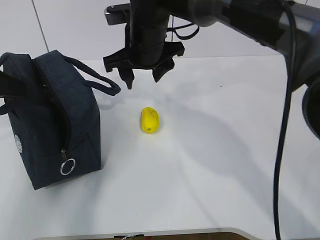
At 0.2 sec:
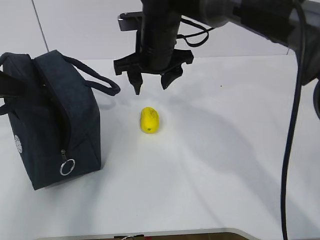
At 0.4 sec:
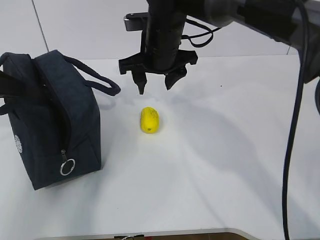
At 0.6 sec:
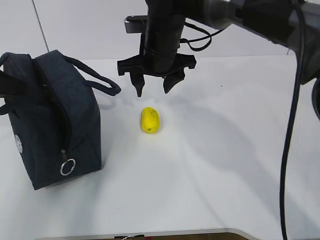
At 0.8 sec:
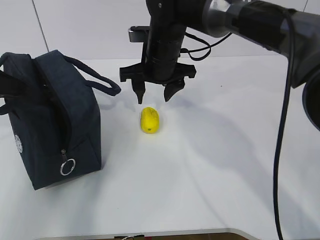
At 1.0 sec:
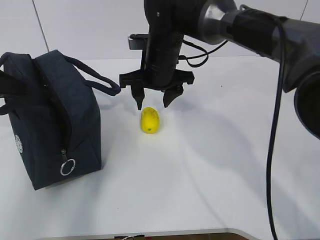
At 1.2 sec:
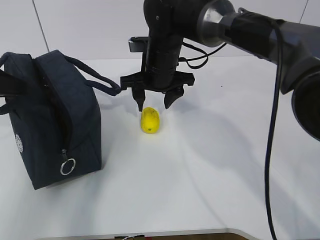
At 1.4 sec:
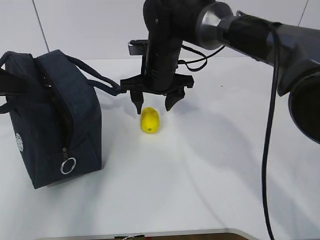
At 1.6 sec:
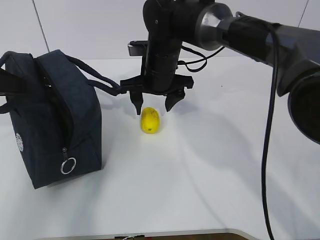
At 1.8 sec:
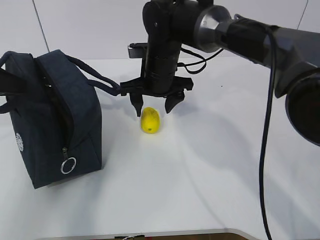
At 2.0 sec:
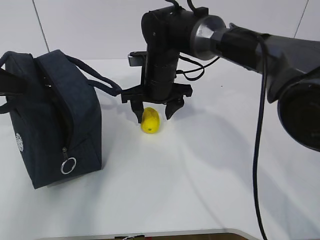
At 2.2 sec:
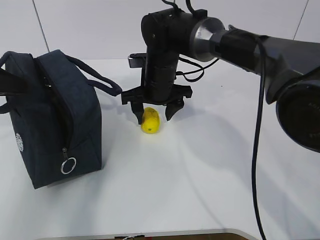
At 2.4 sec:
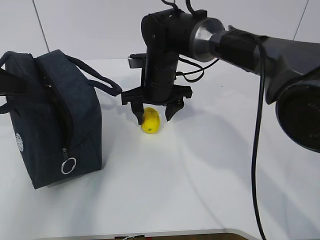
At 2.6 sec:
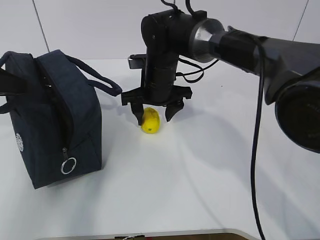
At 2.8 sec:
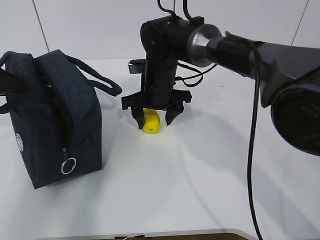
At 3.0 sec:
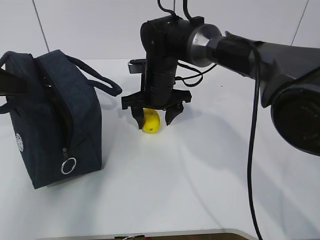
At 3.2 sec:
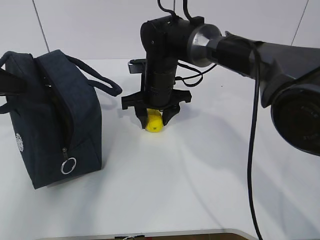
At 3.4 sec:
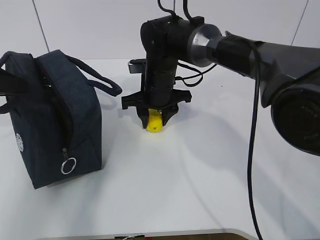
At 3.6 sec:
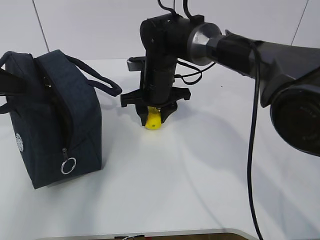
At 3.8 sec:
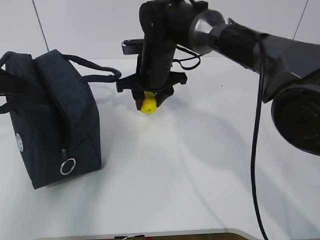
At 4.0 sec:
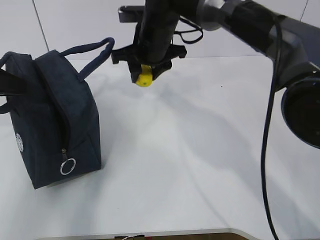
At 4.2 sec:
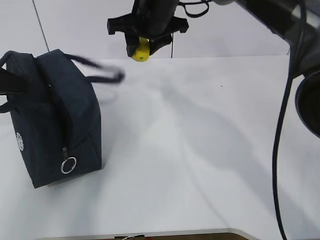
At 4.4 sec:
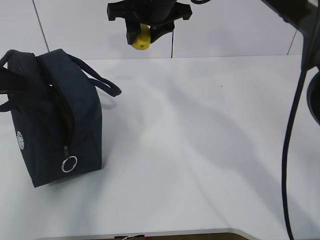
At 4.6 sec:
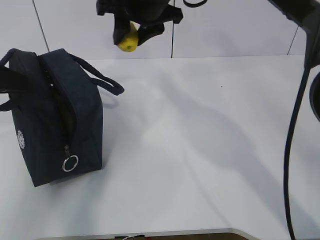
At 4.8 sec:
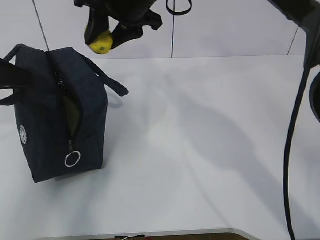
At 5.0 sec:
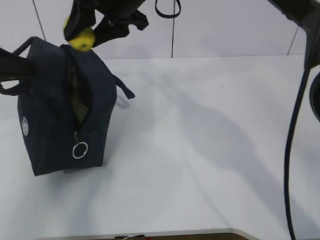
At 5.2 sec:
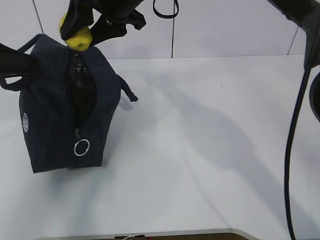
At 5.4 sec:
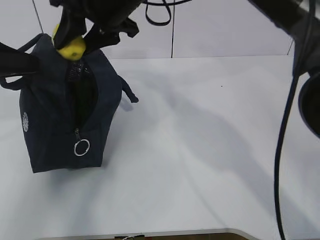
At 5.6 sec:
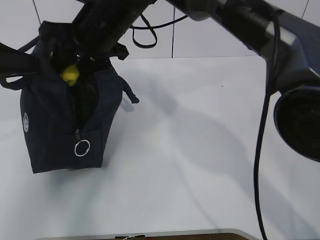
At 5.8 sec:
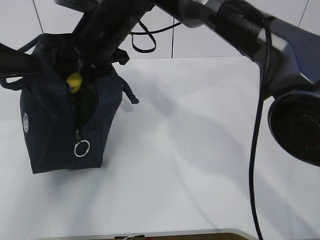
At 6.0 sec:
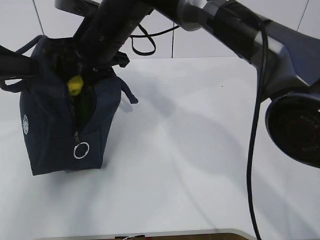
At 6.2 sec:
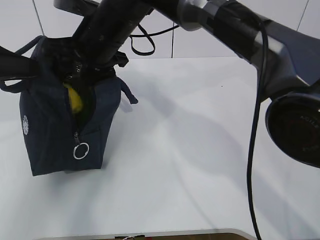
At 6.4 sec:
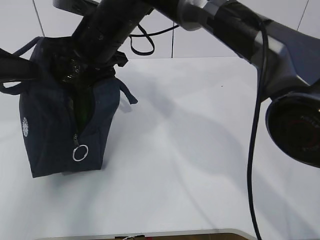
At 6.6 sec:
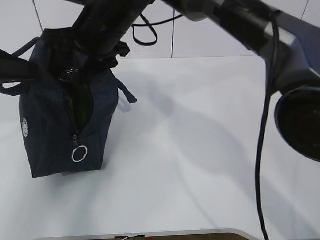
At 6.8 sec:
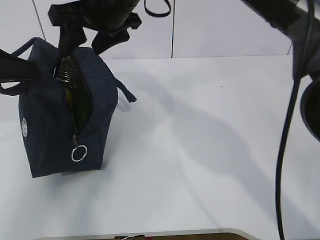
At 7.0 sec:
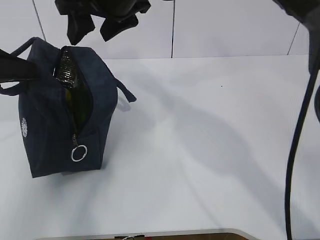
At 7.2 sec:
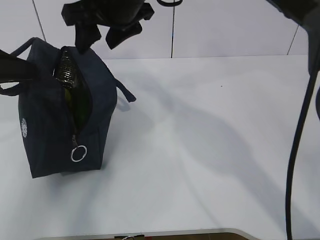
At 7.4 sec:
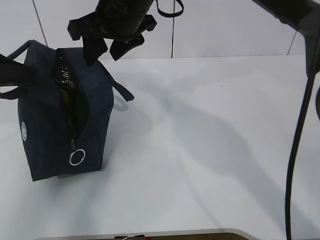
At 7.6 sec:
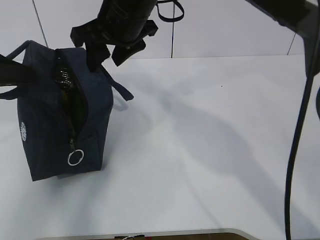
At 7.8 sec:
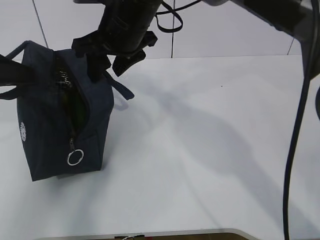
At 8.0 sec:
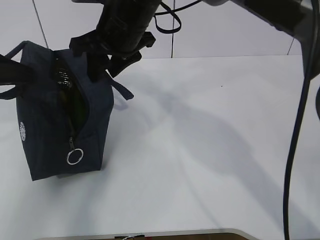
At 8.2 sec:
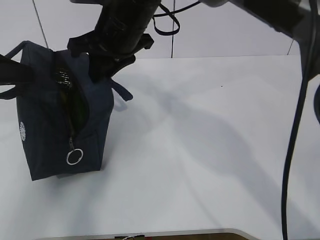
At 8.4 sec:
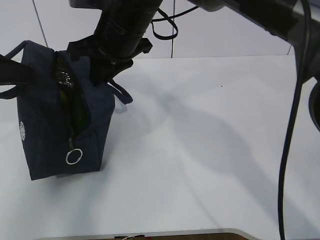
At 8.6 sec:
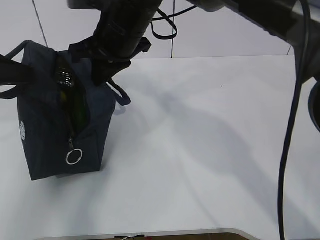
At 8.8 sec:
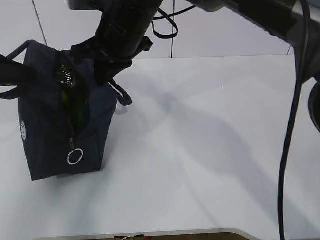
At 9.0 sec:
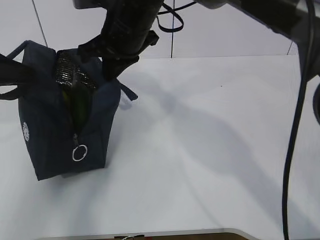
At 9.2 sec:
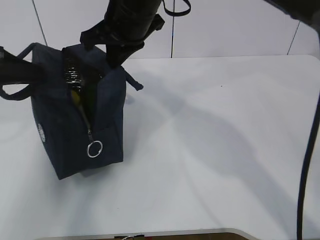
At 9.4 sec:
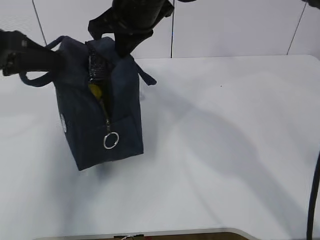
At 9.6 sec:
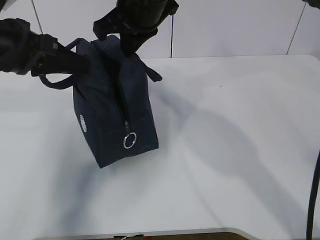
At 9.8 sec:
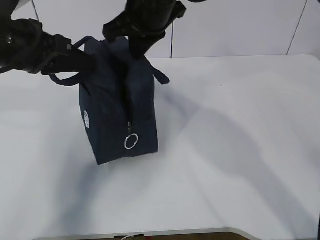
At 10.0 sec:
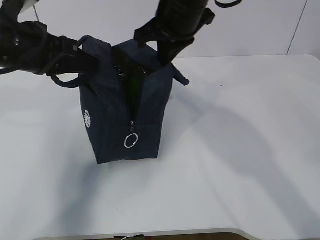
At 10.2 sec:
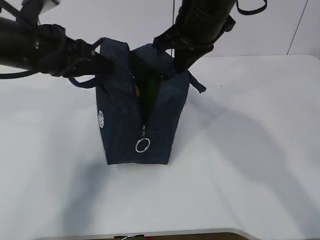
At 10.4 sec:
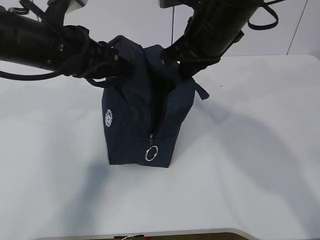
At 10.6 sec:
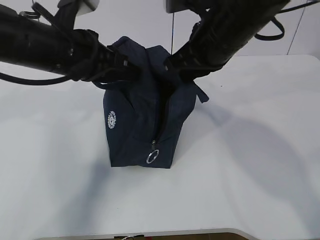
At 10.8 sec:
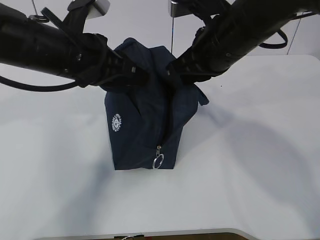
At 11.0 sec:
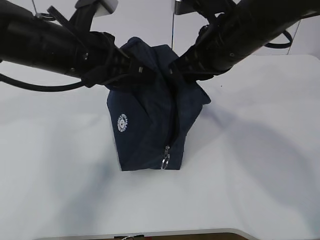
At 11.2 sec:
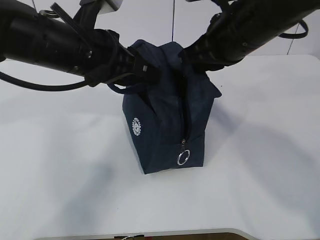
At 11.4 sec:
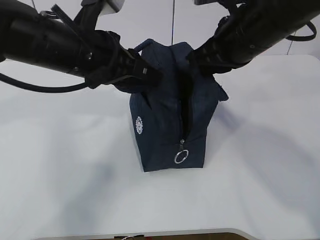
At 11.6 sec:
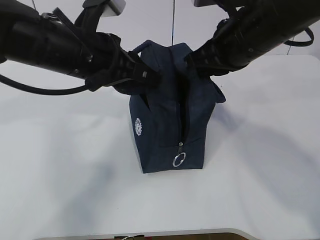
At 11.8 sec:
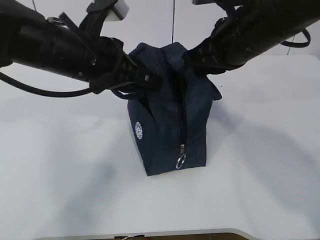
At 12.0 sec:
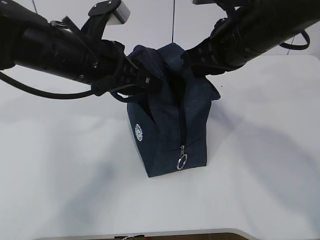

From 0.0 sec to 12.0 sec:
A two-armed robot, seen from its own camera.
Step, from 1.2 sec to 3.2 sec: Grab the lunch bag with your right hand.
Step, from 3.6 sec to 7.0 sec: Move the lunch bag to the right.
From 0.0 sec to 1.6 sec: The right gripper goes some 5 cm downward.
From 1.6 sec to 3.0 sec: The grippers move only a little.
From 3.0 sec to 4.4 sec: The right gripper shifts roughly 15 cm upward.
From 4.4 sec to 6.0 sec: The right gripper is displaced to the left by some 10 cm.
From 7.6 sec to 9.0 sec: The right gripper closes.
From 9.0 sec to 10.4 sec: The two grippers go roughly 10 cm to the right.

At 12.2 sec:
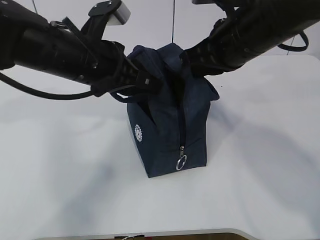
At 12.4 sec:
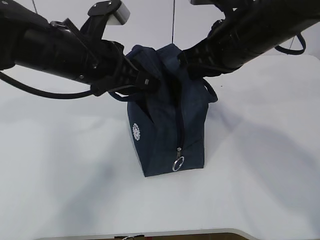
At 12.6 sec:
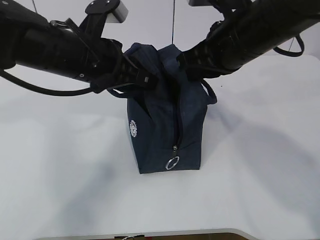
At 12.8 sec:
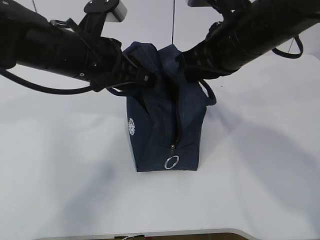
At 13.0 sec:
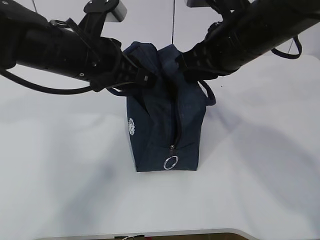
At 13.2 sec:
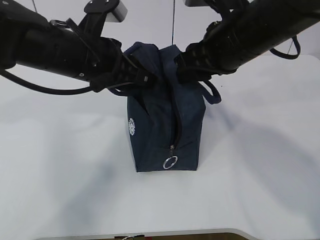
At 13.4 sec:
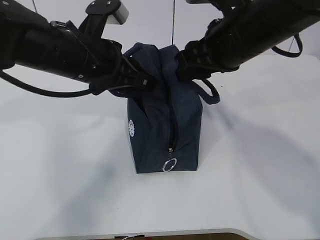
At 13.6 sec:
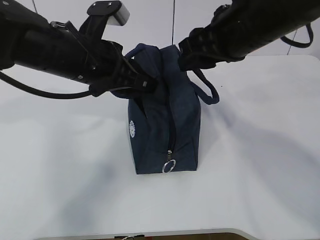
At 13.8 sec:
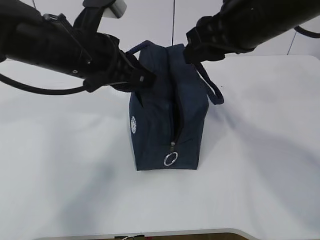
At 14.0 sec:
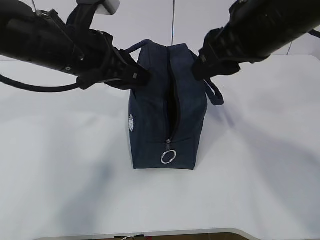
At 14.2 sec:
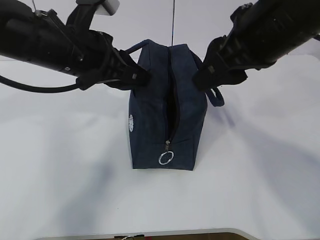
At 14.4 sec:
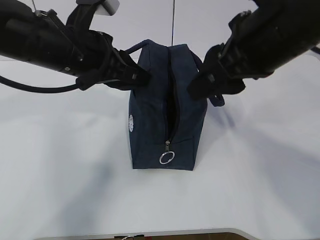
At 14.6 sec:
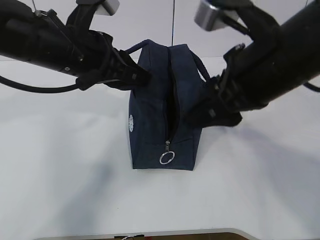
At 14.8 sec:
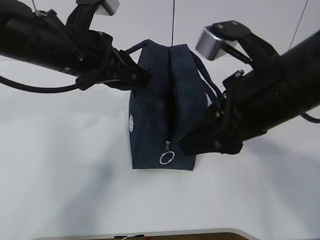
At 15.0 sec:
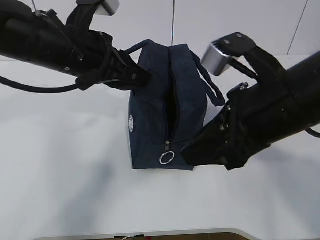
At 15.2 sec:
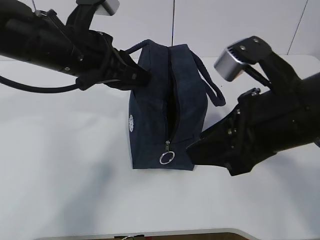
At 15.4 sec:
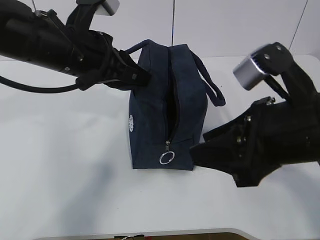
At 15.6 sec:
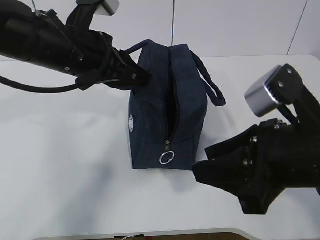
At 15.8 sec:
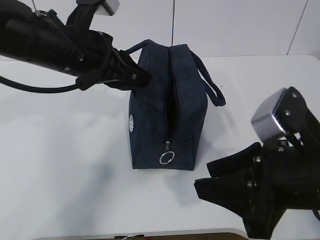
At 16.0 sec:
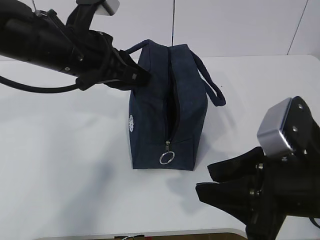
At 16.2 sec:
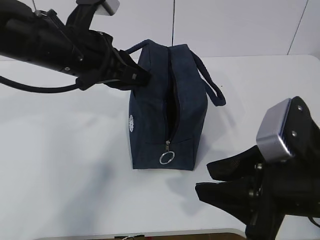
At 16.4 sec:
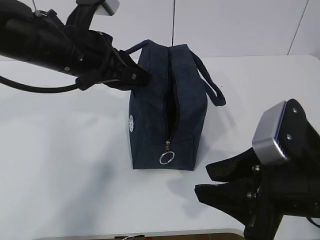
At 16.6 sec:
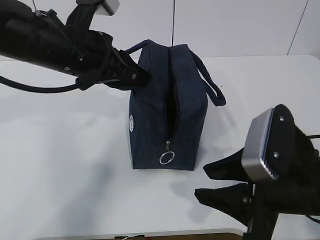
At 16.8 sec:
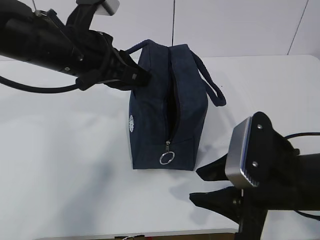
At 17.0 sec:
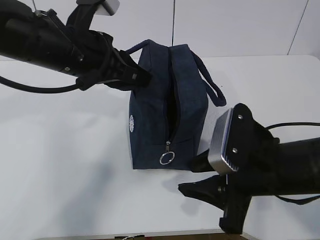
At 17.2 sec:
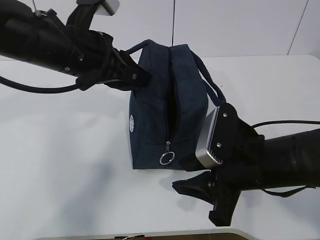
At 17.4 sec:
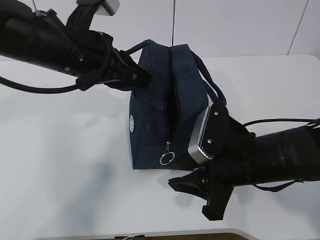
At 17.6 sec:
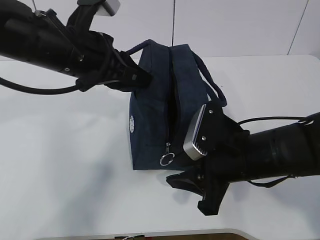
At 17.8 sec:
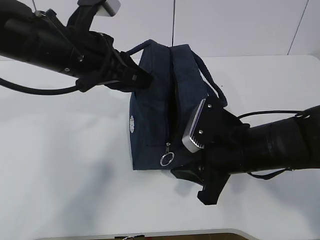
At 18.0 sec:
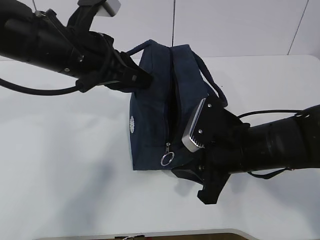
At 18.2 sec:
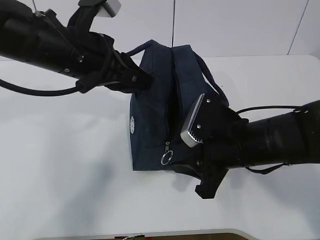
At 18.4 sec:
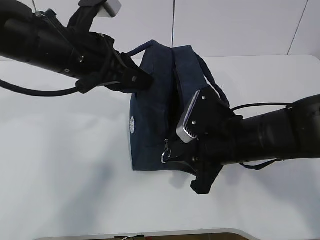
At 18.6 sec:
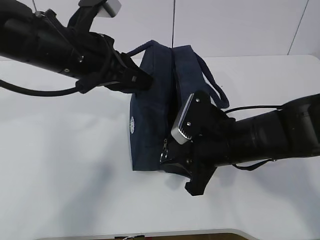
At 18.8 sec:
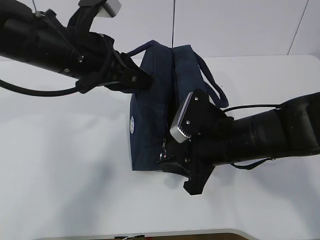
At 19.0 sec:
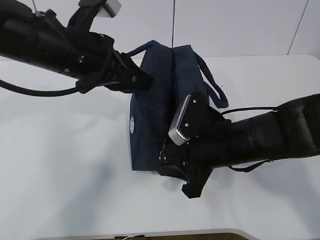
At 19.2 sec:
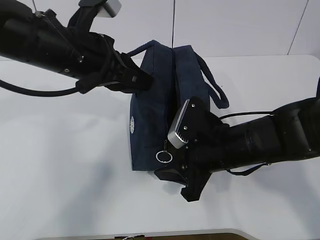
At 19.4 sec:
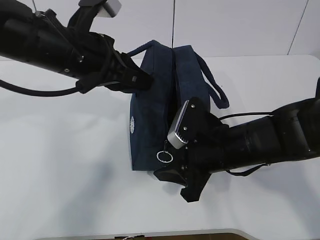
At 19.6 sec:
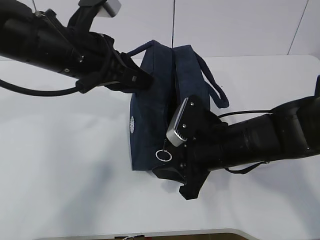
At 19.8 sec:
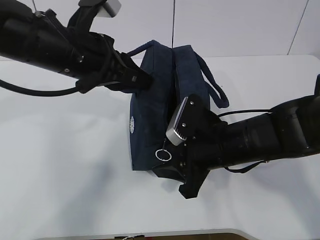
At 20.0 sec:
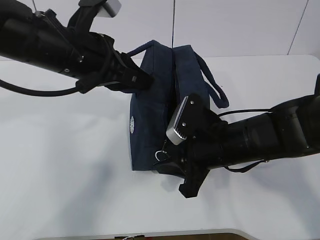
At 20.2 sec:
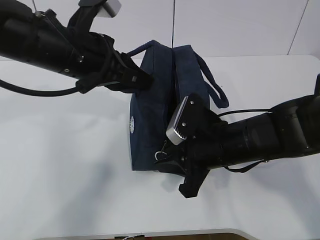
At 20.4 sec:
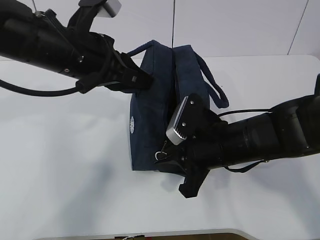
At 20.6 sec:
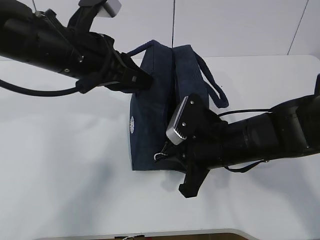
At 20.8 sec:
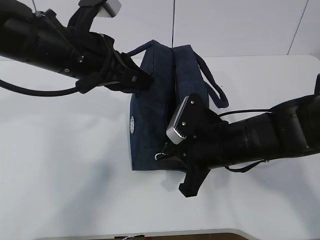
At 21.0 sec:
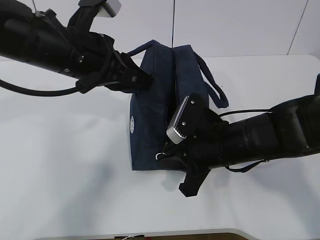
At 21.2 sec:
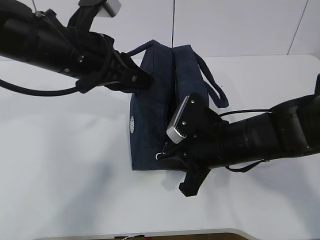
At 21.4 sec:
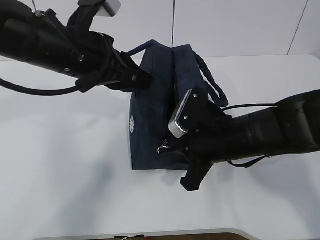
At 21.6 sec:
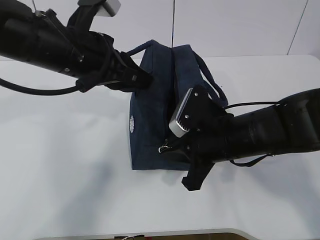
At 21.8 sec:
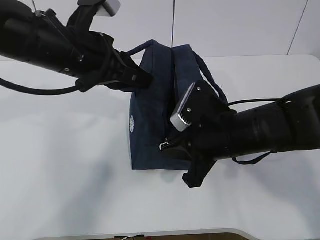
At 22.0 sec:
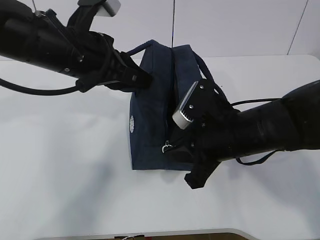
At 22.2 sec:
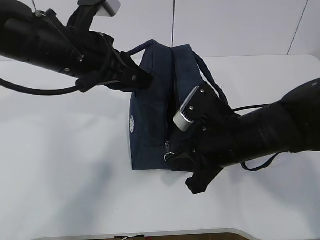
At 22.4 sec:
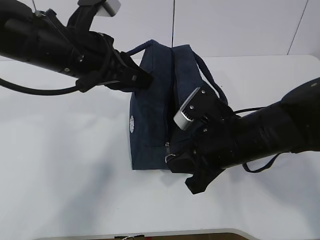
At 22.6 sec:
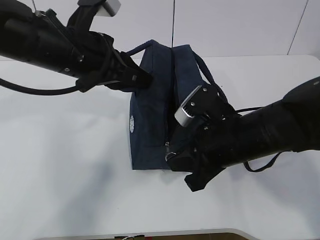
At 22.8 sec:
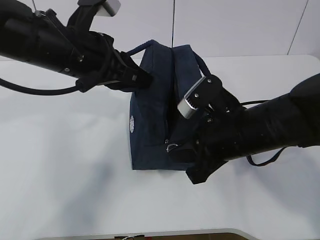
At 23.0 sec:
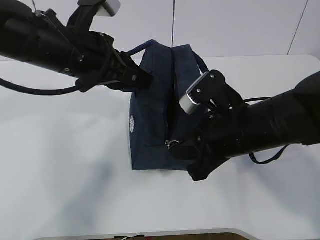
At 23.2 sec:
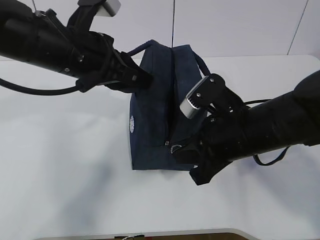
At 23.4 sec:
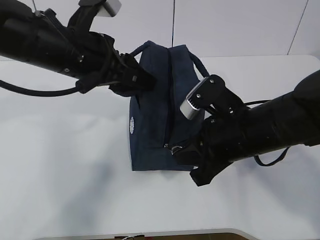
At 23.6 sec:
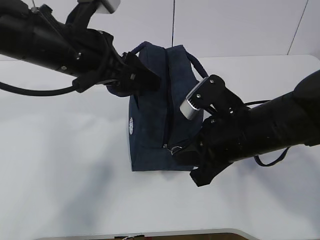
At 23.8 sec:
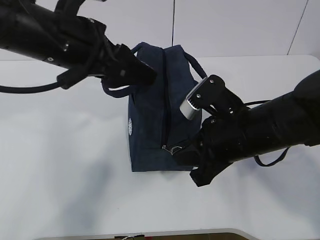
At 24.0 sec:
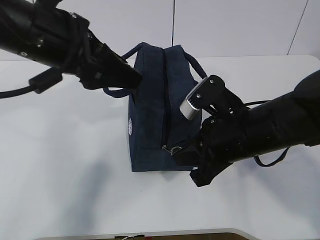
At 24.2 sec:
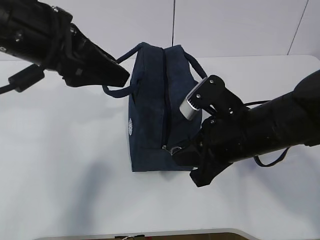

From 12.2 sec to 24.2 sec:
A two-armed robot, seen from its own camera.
From 12.2 sec to 13.8 sec: The right gripper opens up.
From 13.8 sec to 15.2 sec: The right gripper goes approximately 10 cm backward and downward.
From 15.2 sec to 16.6 sec: The right gripper goes roughly 5 cm downward.
From 16.6 sec to 18.2 sec: The right gripper is displaced forward by approximately 10 cm.
From 18.2 sec to 19.8 sec: The grippers move only a little.
From 19.8 sec to 21.2 sec: The right gripper closes up.
From 21.2 sec to 22.6 sec: The grippers make only small movements.
From 22.6 sec to 24.2 sec: The left gripper shifts by roughly 5 cm, and opens its fingers.
